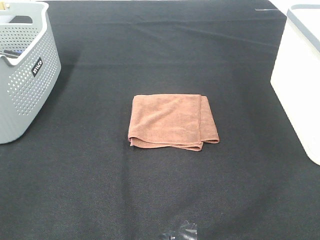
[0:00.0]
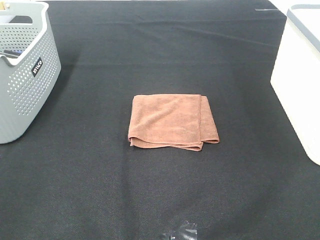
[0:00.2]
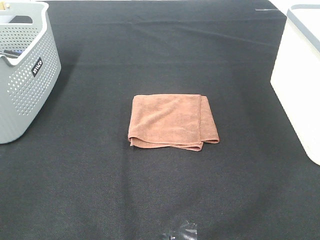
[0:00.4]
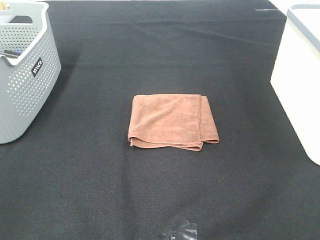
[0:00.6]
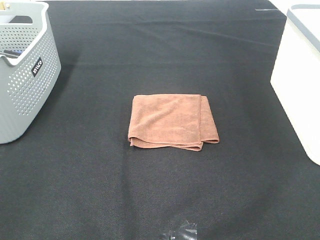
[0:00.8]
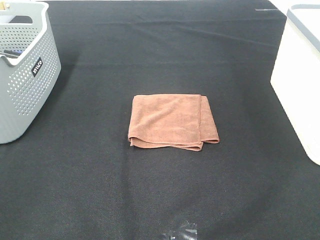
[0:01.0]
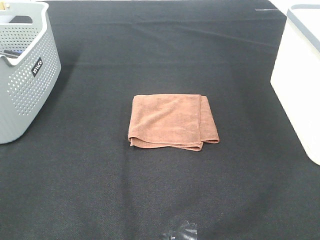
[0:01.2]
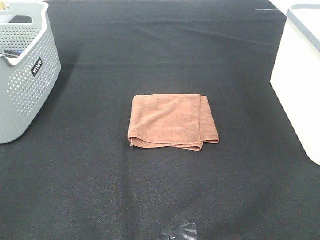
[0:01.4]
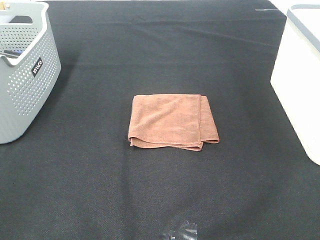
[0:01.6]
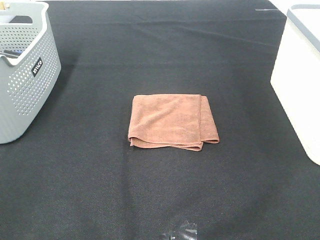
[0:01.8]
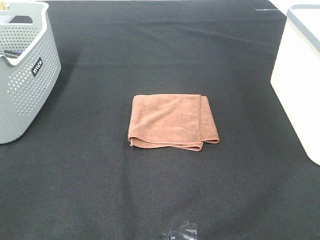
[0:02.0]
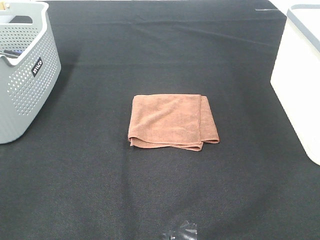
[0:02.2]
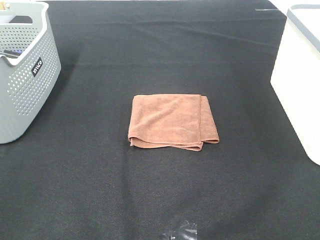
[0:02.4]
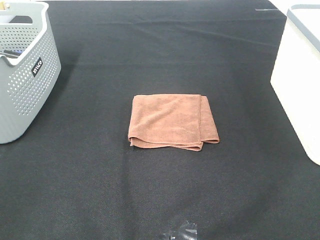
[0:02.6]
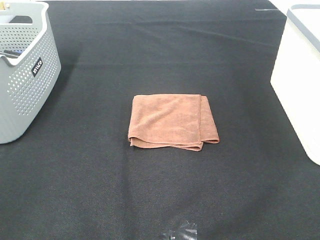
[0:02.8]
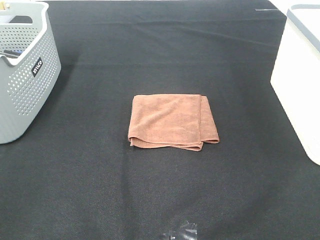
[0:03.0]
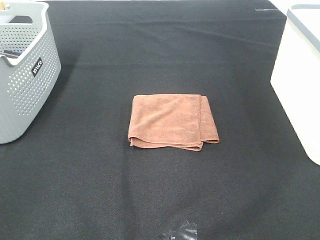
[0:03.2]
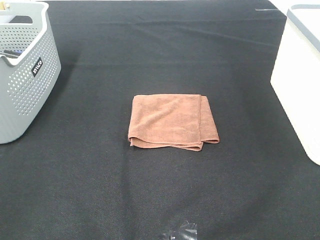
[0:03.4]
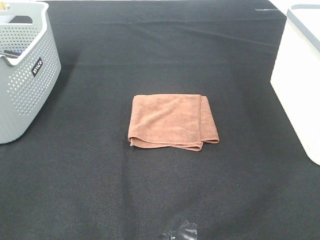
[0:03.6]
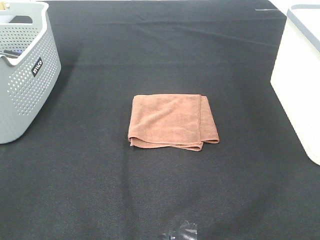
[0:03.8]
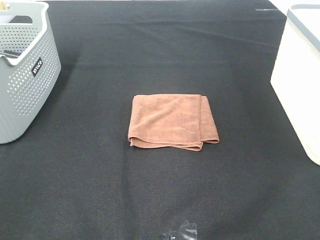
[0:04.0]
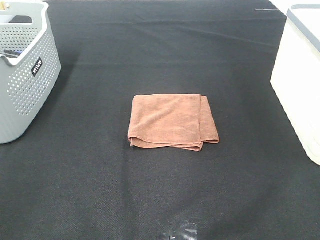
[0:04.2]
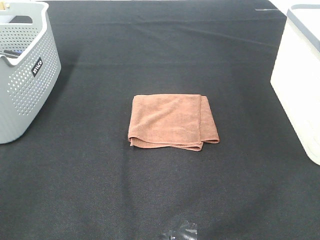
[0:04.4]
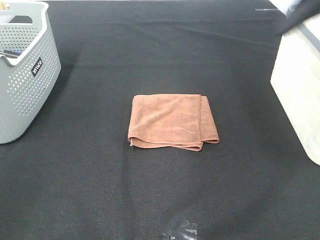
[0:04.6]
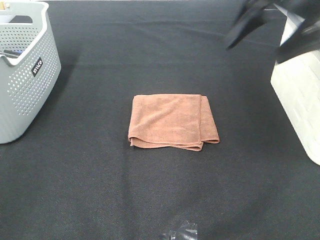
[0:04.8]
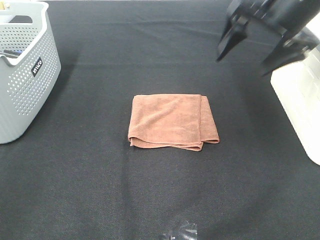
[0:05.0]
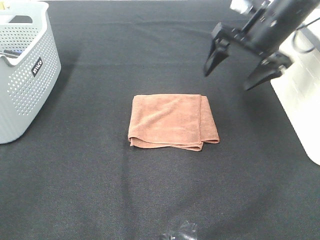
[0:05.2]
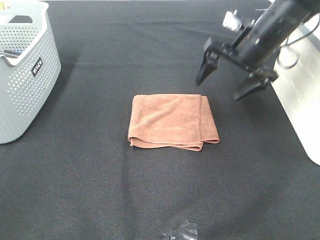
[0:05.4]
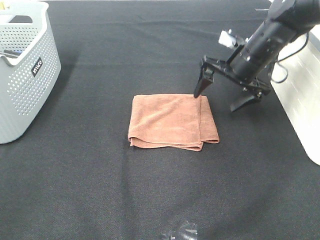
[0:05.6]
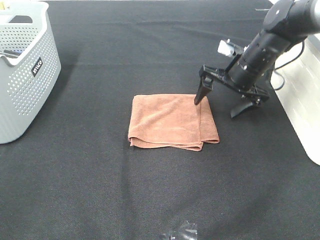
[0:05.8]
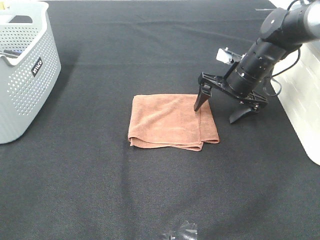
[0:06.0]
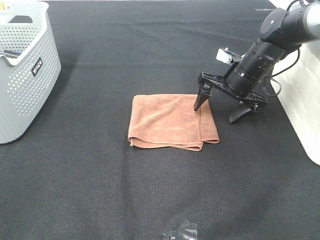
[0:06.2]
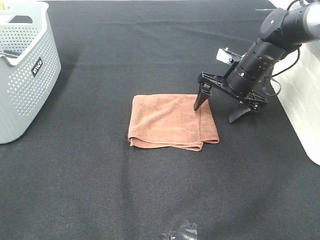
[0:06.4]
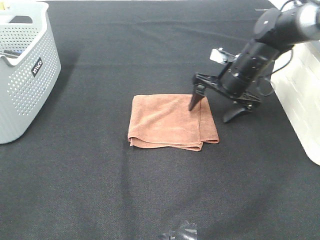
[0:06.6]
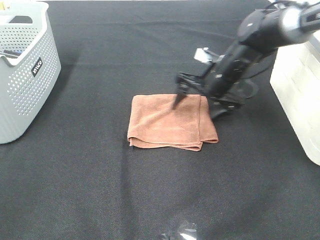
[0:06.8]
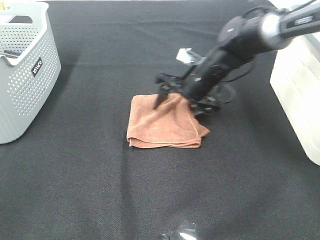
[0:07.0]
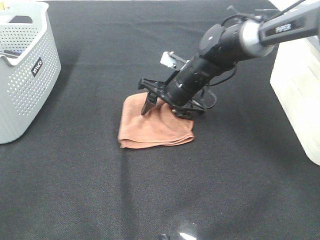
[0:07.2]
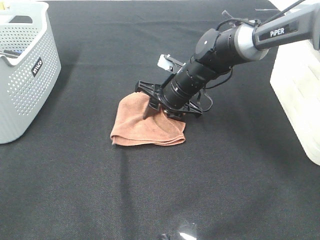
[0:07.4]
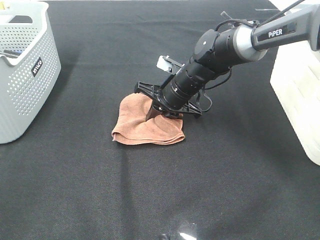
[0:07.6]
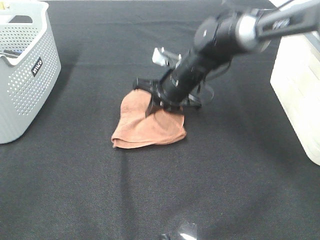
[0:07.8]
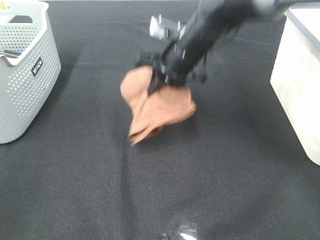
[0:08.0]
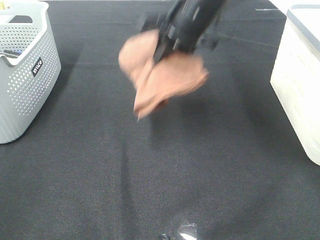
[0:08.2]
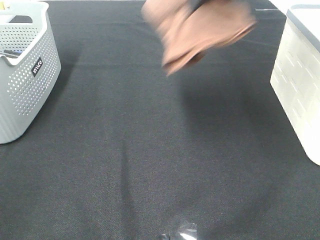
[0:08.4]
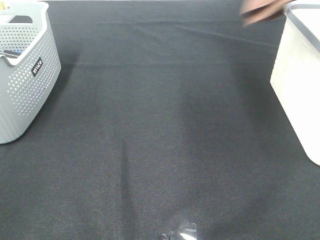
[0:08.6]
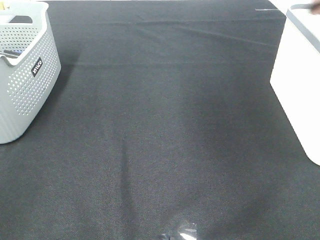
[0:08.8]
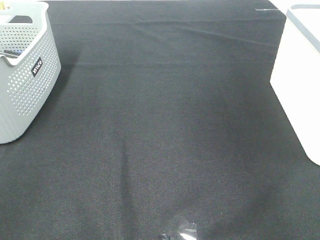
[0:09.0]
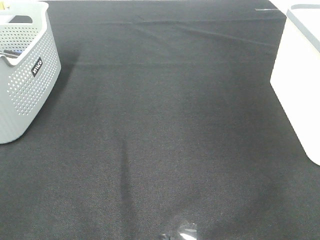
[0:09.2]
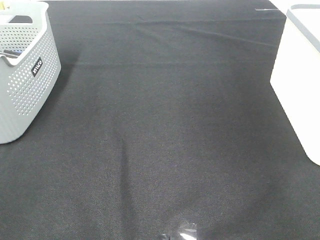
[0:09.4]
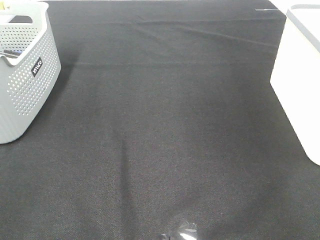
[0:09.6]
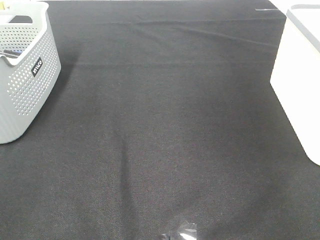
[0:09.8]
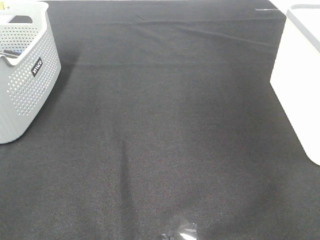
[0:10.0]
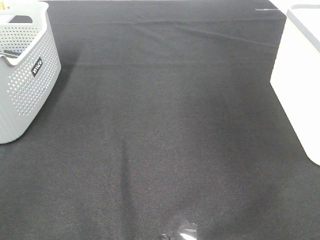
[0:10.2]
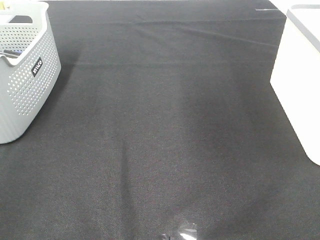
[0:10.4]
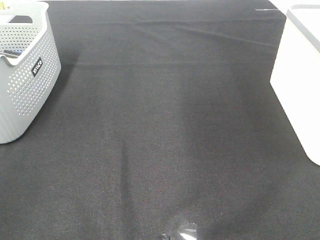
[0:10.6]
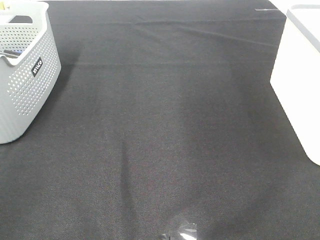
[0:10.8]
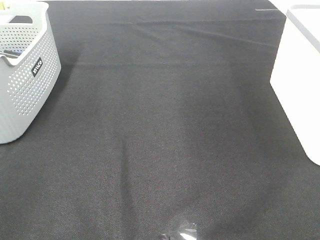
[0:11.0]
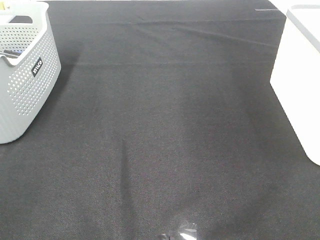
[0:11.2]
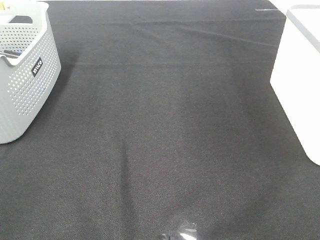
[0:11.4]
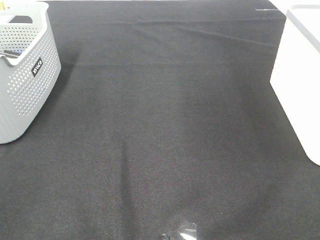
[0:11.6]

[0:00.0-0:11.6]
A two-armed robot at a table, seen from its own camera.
Step, 0:00.0 to 0:07.4: Right hand: grab the folded brown towel.
Step, 0:07.6 to 0:09.8: Right hand: place the brown towel in right basket.
0:00.0 to 0:02.8: Both grippers stay put.
0:04.4 to 0:05.8: The right gripper shifts approximately 30 cm downward and forward.
0:05.8 to 0:07.2: The right gripper heads to the left, covering about 15 cm, and closes.
0:07.2 to 0:08.8: The right gripper moves upward and to the right, roughly 40 cm, and closes.

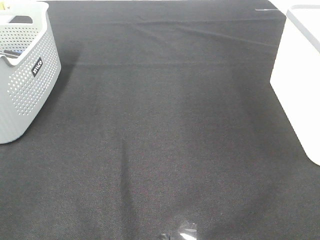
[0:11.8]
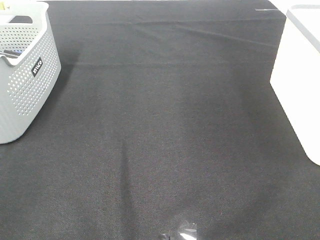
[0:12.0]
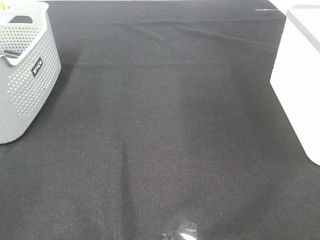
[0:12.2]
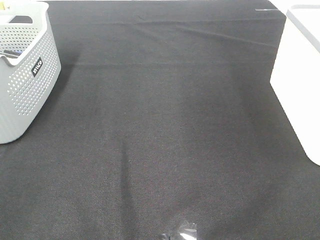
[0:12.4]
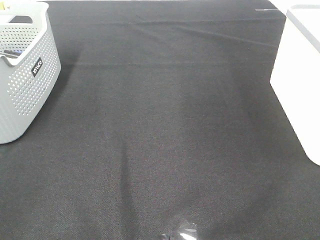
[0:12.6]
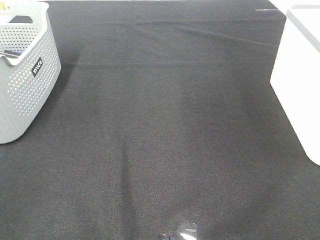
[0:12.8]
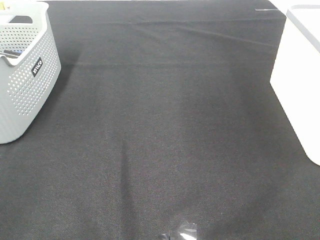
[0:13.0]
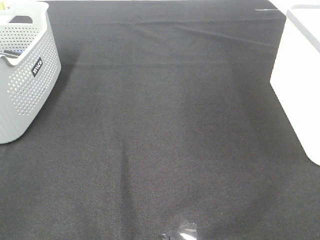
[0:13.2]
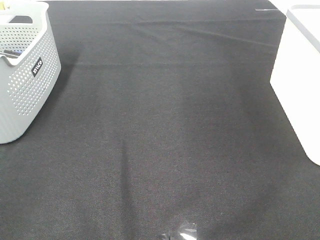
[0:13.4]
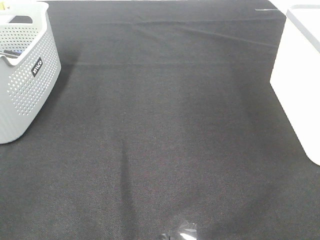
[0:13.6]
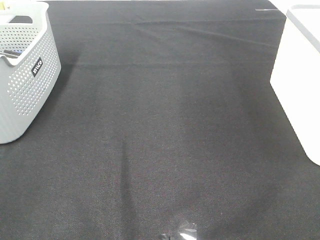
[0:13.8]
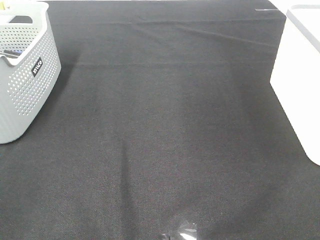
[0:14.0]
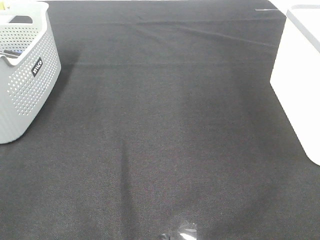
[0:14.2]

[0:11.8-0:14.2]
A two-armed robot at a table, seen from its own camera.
0:13.0 to 0:14.2: The two grippers keep their place.

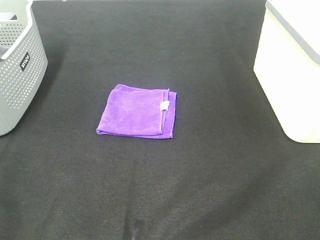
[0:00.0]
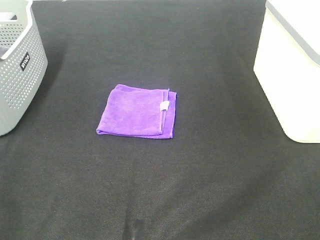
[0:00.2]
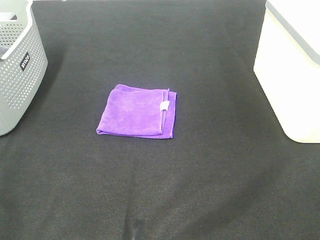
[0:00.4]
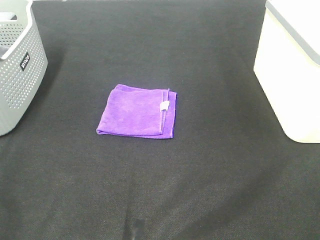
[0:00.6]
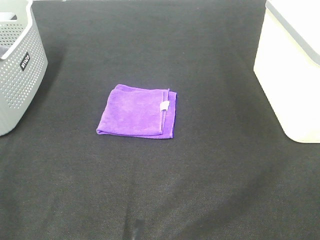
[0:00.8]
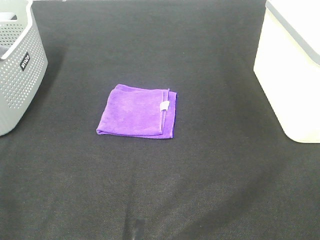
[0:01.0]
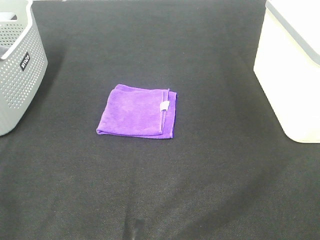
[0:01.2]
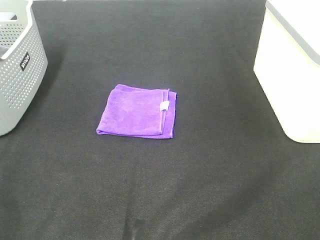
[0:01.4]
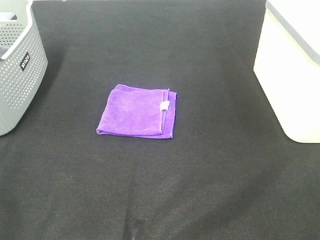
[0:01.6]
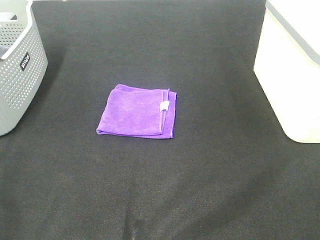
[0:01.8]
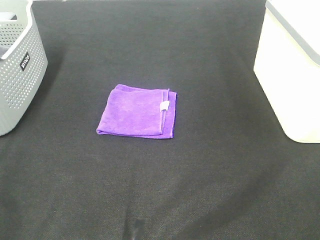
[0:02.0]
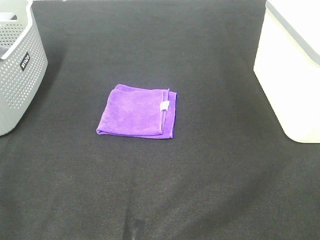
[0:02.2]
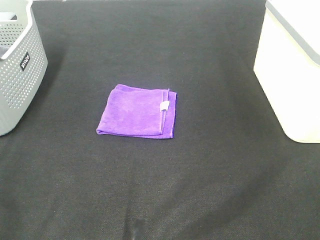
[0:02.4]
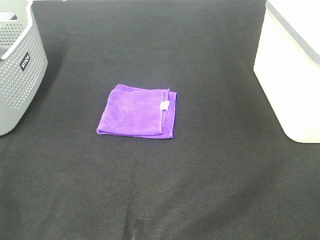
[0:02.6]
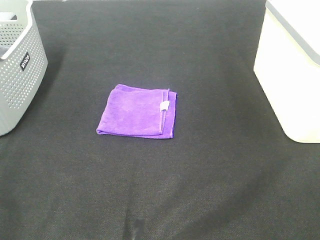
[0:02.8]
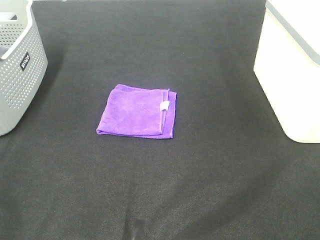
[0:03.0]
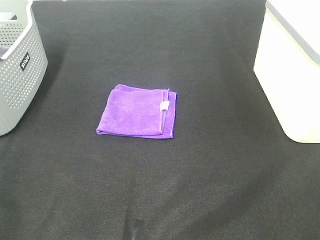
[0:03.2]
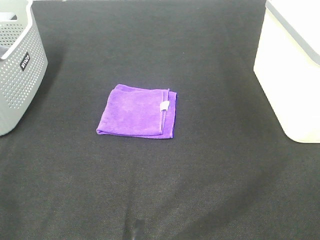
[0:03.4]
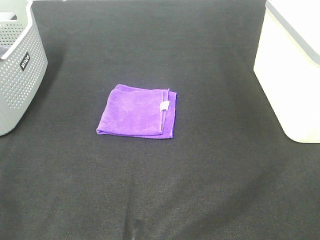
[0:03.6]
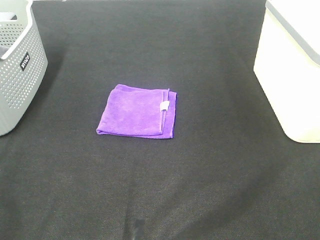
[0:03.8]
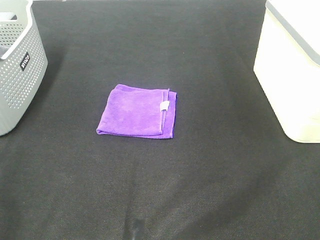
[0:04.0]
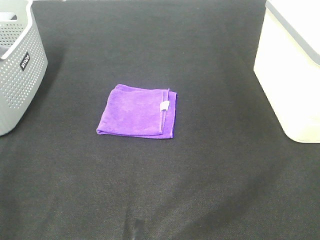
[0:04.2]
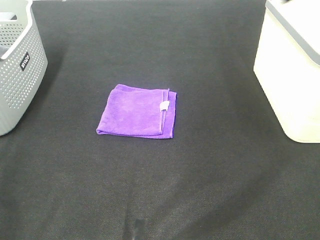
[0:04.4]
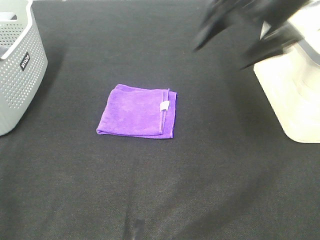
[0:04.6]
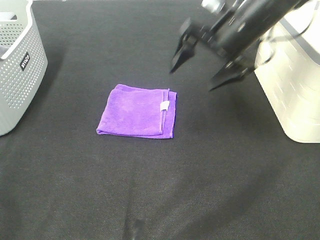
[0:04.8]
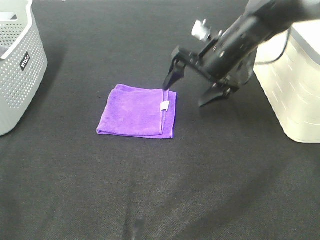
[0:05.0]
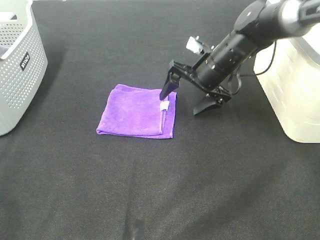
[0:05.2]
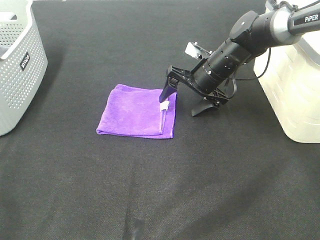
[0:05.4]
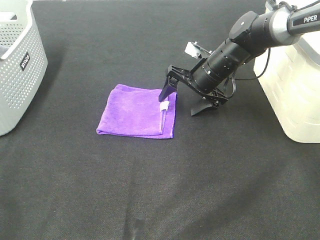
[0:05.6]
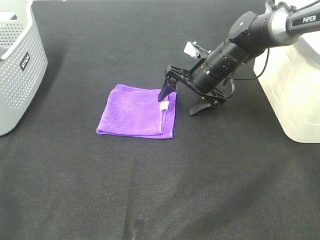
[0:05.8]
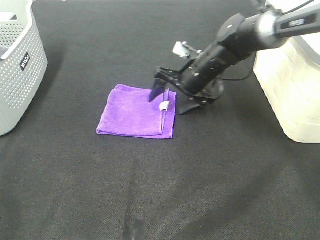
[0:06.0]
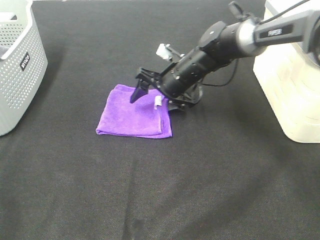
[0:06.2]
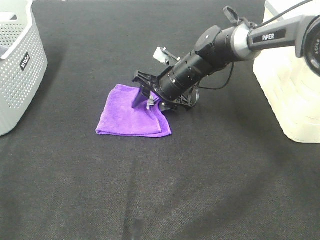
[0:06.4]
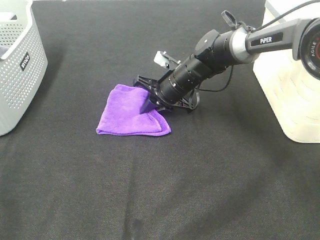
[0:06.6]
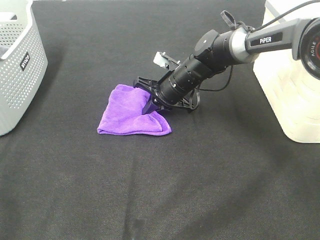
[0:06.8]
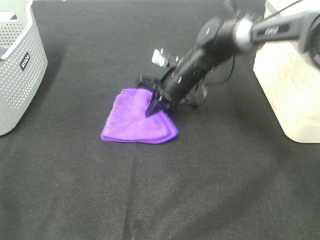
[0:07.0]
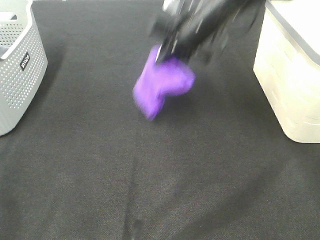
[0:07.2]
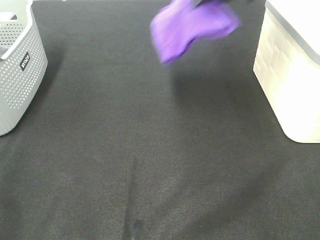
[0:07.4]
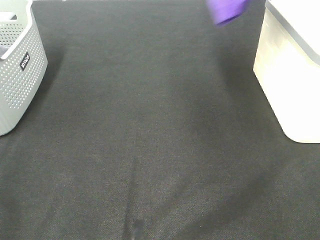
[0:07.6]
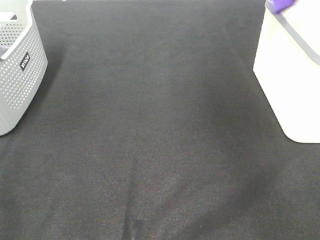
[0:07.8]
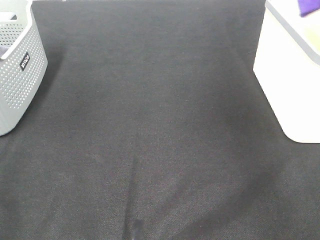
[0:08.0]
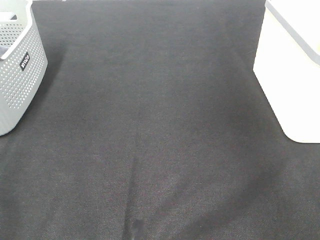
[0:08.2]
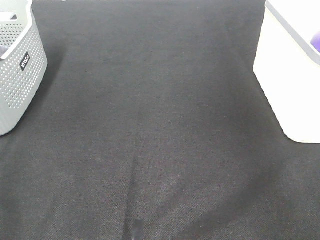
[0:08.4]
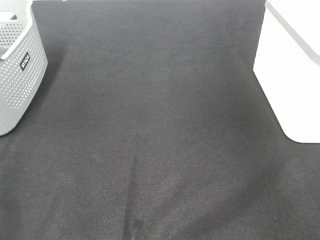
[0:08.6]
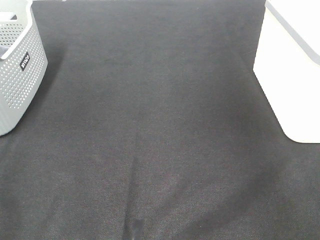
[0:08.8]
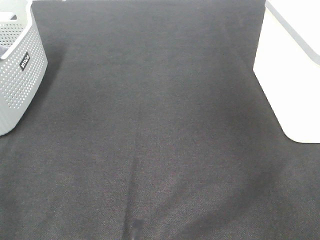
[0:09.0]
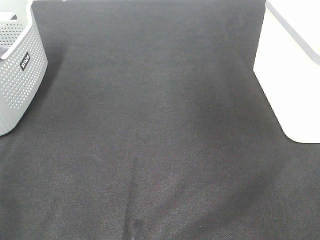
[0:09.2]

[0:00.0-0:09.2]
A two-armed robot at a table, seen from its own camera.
Step, 0:00.0 to 0:06.6: Right hand: grab the folded purple towel.
Step, 0:06.8 to 0:08.6: Right hand: place the purple towel in right basket.
0:00.0 to 0:03.0: Neither gripper changes place.
0:03.0 to 0:04.6: The right gripper heads forward, covering approximately 35 cm.
0:04.6 to 0:06.2: The right gripper heads downward, to the left and forward, covering roughly 25 cm.
0:06.2 to 0:07.6: The right gripper heads upward and to the right, covering about 40 cm, and closes.
0:07.6 to 0:09.2: The right gripper moves approximately 10 cm to the right and comes back, and opens its fingers.
